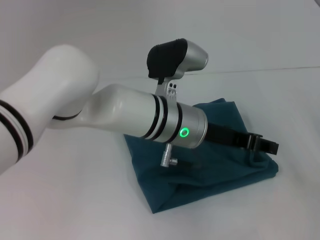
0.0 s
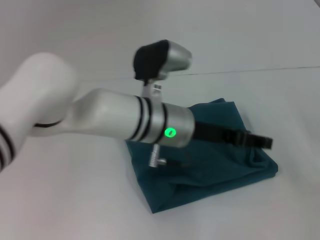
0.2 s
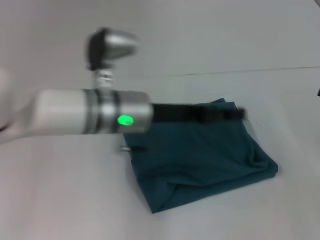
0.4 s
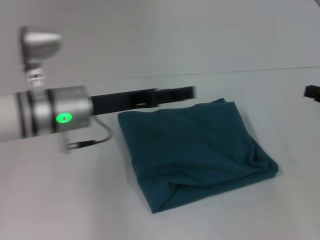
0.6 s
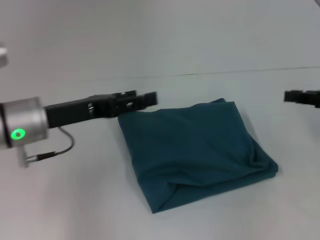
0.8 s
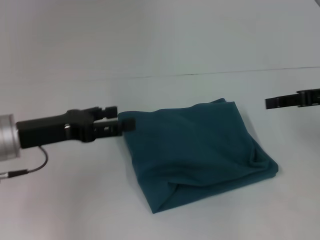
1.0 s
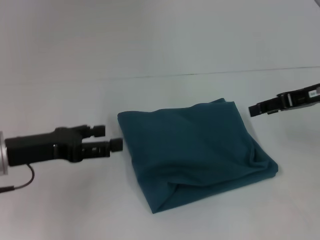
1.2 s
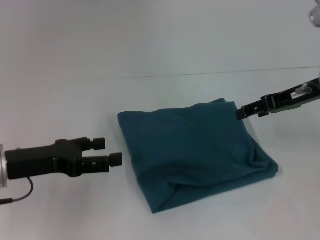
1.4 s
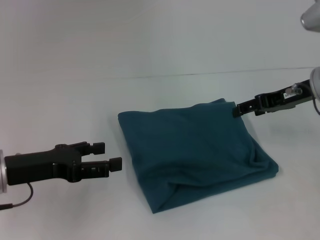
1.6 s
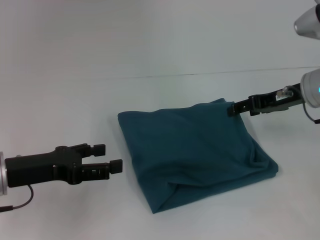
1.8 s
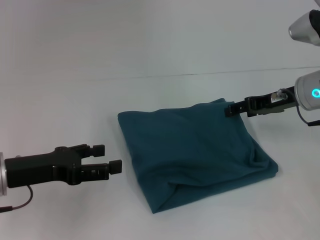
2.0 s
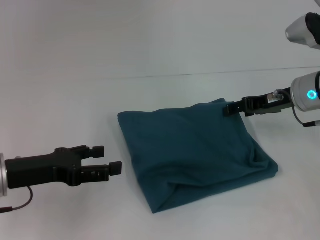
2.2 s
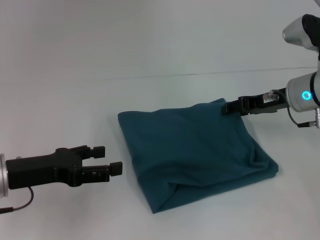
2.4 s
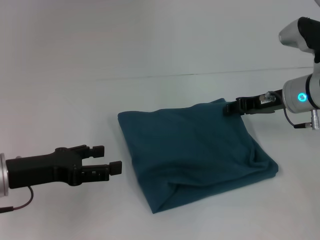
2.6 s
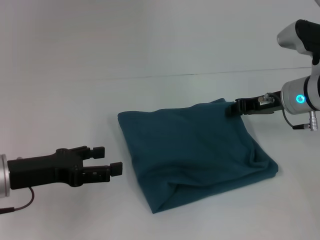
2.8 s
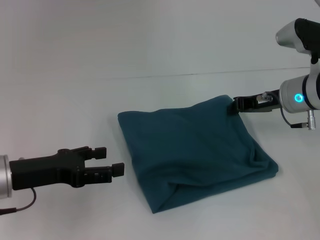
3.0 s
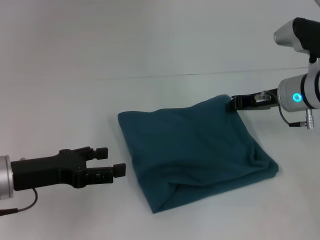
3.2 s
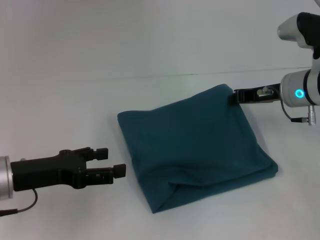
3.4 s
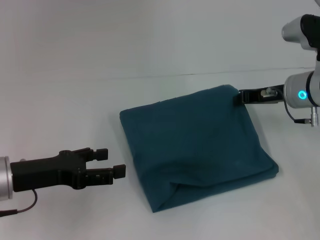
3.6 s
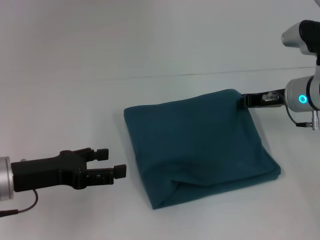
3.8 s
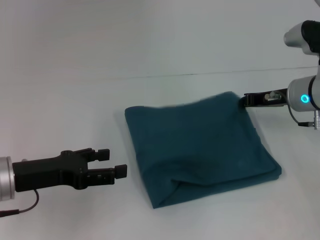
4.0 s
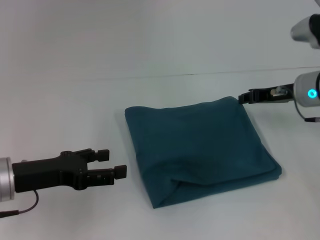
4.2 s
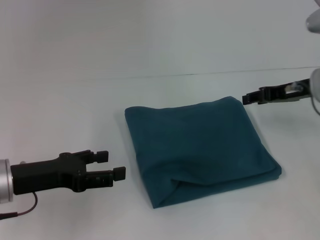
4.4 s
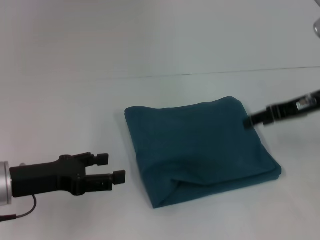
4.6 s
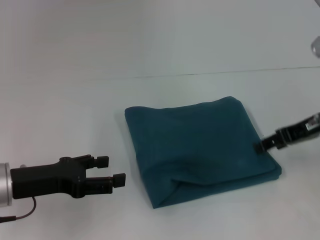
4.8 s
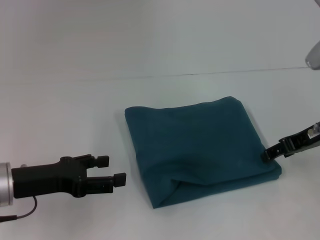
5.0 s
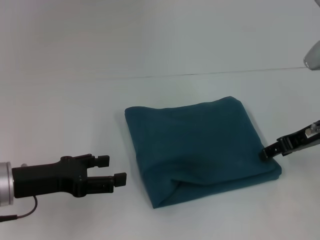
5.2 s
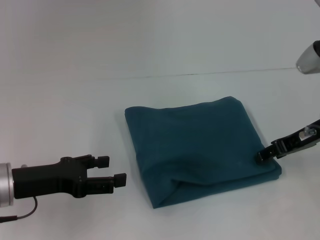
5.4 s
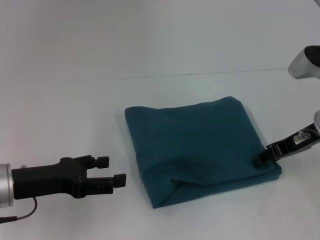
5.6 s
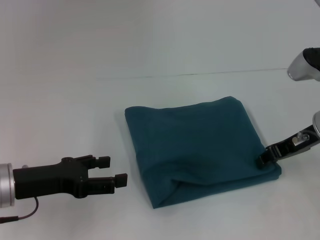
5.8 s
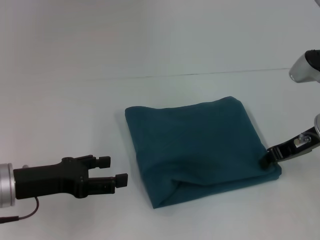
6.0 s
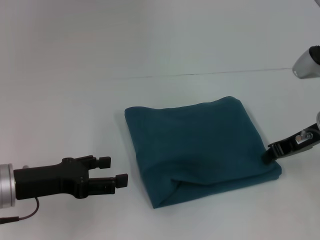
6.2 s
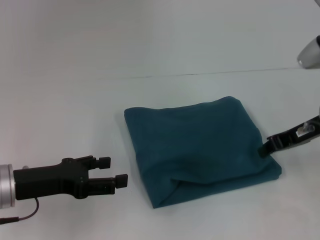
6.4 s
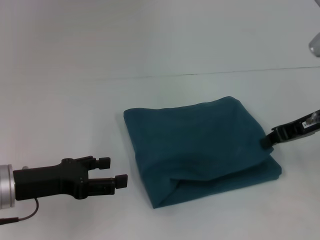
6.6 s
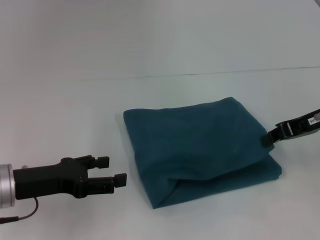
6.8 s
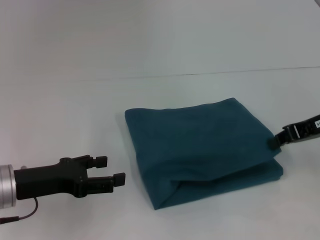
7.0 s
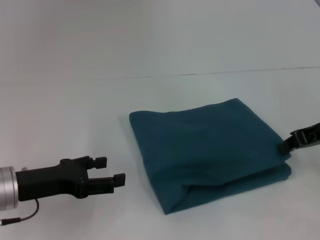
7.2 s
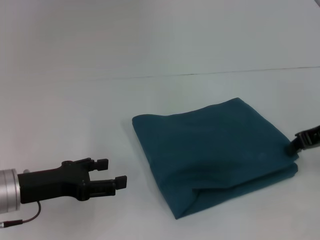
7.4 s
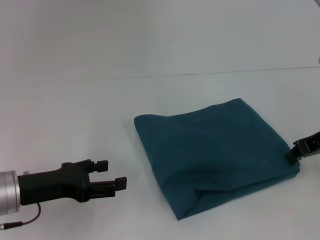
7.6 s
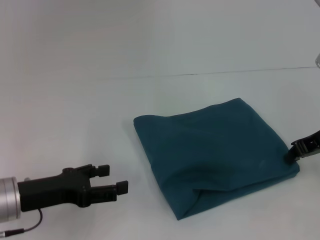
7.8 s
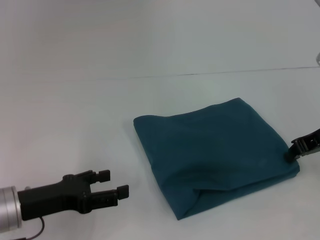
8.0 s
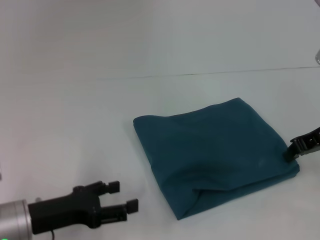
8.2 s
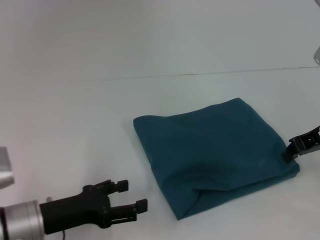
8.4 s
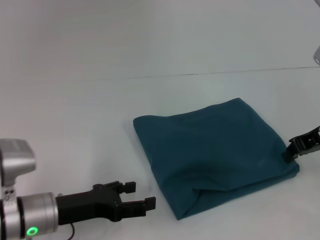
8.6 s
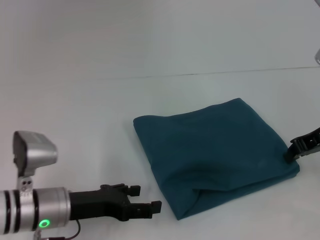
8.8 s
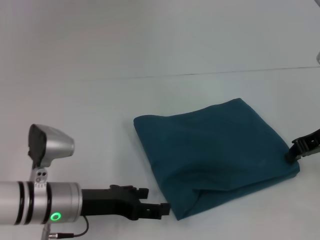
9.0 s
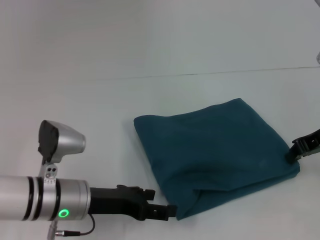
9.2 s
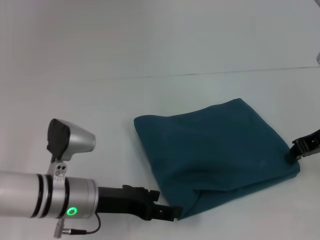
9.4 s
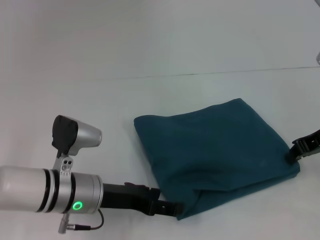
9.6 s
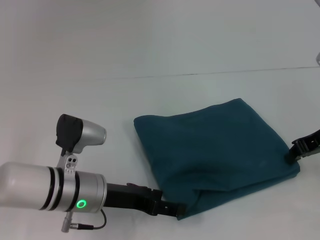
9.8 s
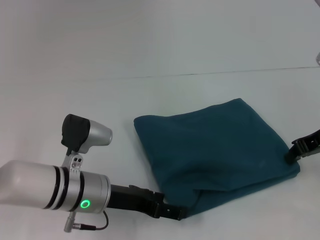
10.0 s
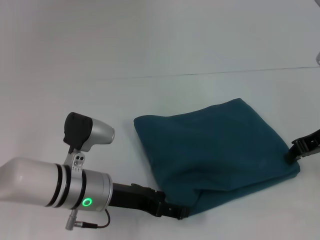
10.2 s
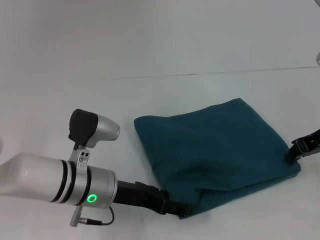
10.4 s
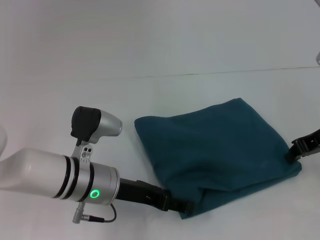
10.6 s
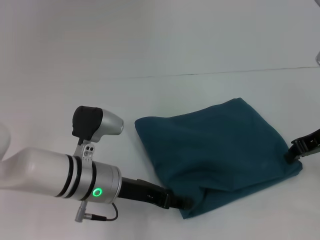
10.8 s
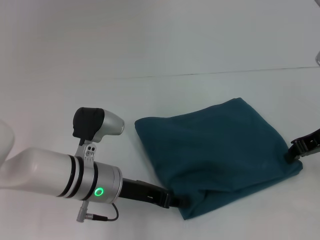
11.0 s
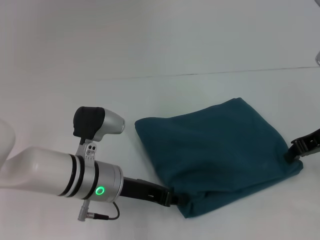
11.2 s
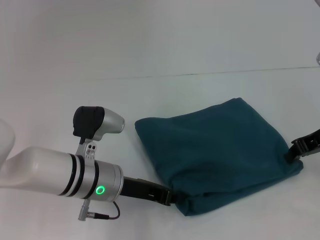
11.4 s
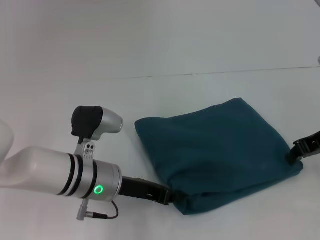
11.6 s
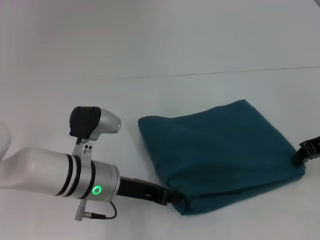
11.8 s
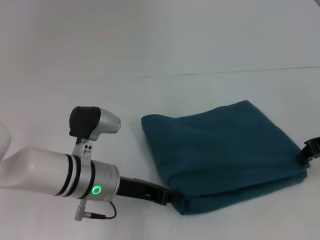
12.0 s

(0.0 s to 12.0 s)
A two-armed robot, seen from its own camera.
0.0 s - 1.6 s: The right gripper goes approximately 20 cm to the left, forward and upward, and opens up. Meanwhile the left gripper is displaced to the left by roughly 25 cm, and opens.
1.6 s - 3.0 s: The right gripper ends up roughly 5 cm from where it was, and closes up.
3.0 s - 4.4 s: The grippers stay close to where they were, moving slightly.
4.4 s - 6.0 s: The right gripper opens, then closes again.
6.0 s - 7.6 s: The right gripper closes its fingers.
7.6 s - 9.0 s: The left gripper is displaced to the right by some 5 cm.
9.0 s - 10.4 s: The left gripper travels to the right by about 5 cm.
10.4 s - 12.0 s: The left gripper closes.

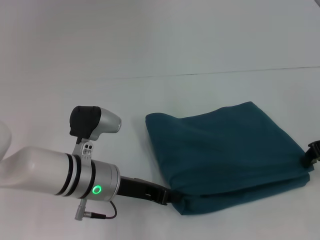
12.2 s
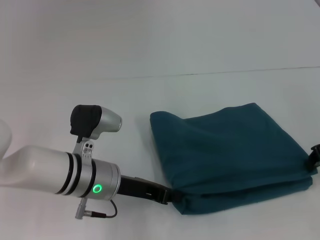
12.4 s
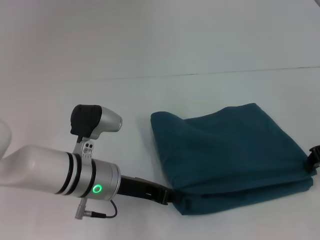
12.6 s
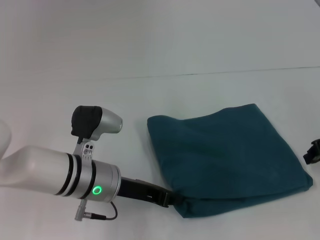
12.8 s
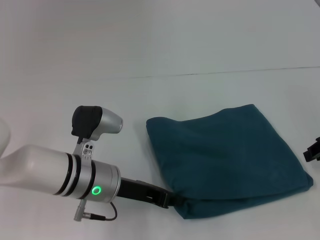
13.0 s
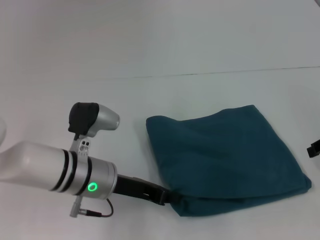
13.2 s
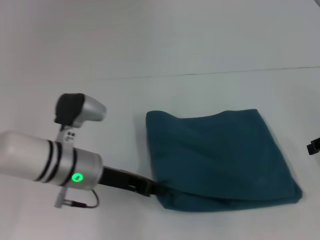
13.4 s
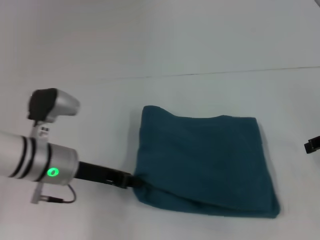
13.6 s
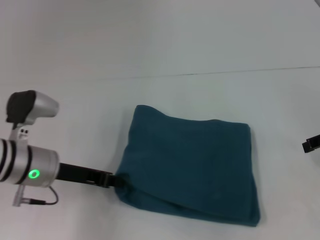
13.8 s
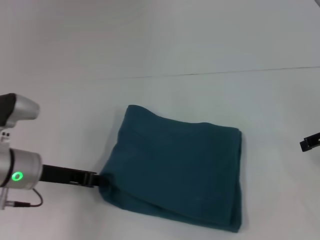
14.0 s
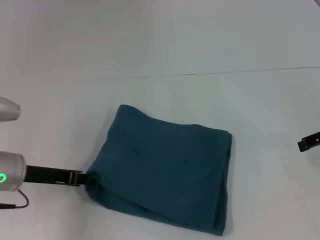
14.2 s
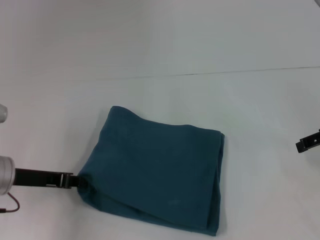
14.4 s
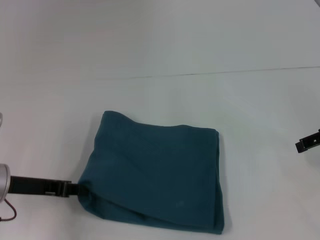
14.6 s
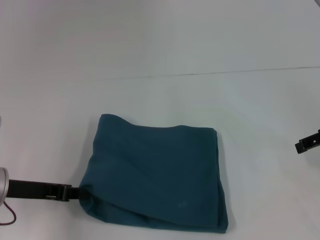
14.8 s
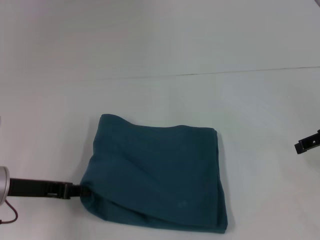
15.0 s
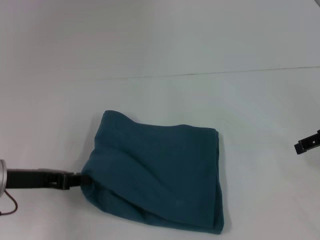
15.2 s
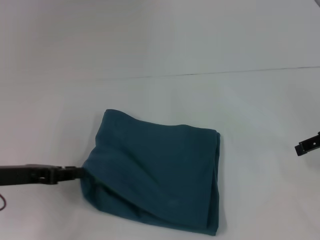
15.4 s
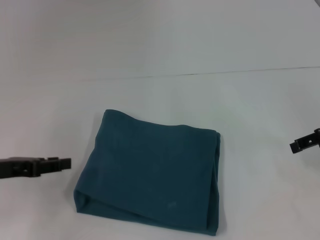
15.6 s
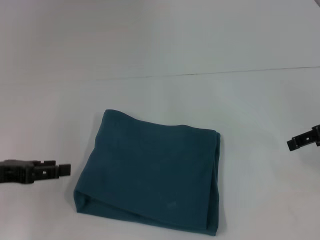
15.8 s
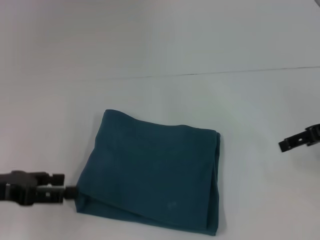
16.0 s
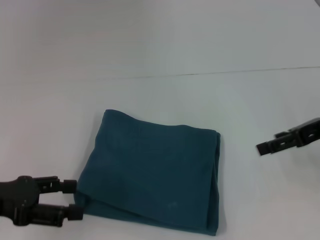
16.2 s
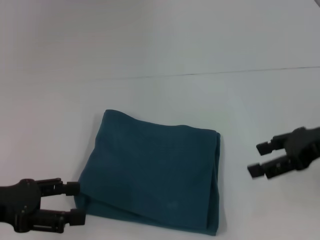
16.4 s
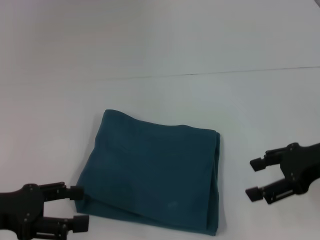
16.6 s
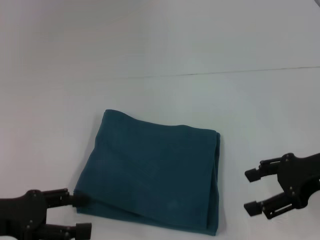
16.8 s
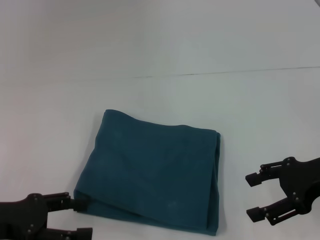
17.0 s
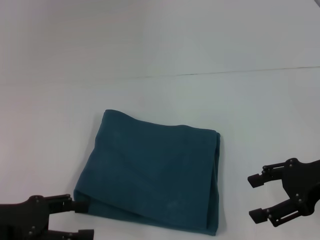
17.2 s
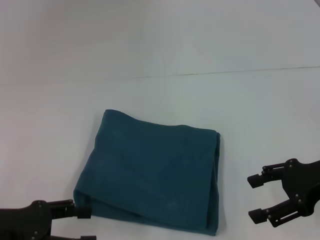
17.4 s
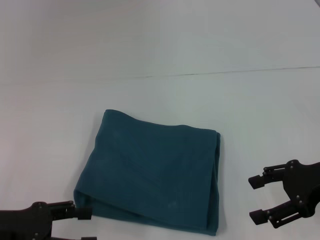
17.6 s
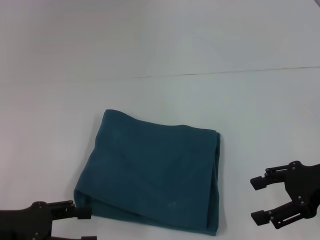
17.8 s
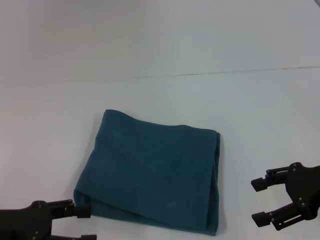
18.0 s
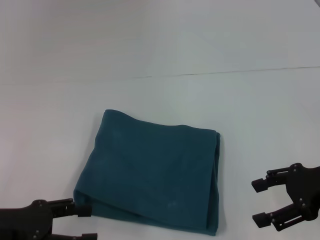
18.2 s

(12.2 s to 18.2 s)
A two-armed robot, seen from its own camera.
12.2 s - 13.8 s: The right gripper opens its fingers; the left gripper shifts some 10 cm to the left.
13.8 s - 15.2 s: The left gripper shifts roughly 5 cm to the left.
15.2 s - 16.6 s: The left gripper goes some 5 cm backward, and opens up. Meanwhile the right gripper shifts by approximately 5 cm.
16.6 s - 18.2 s: The grippers stay close to where they were, moving slightly.

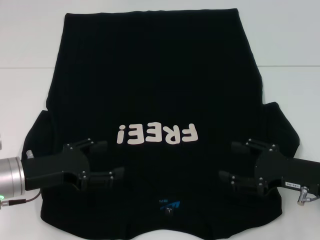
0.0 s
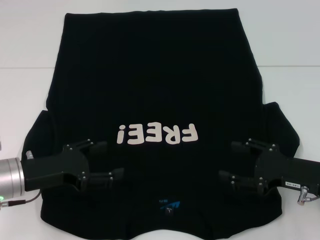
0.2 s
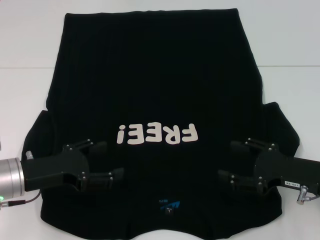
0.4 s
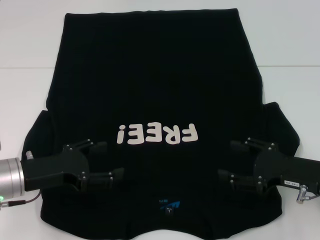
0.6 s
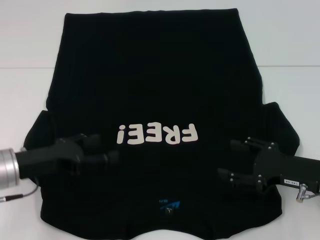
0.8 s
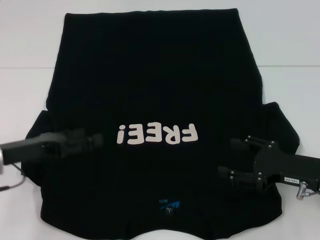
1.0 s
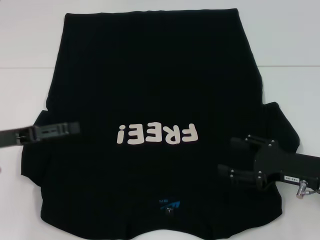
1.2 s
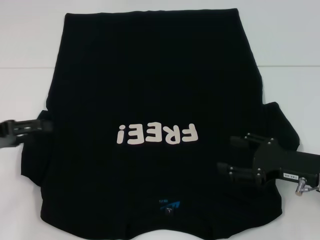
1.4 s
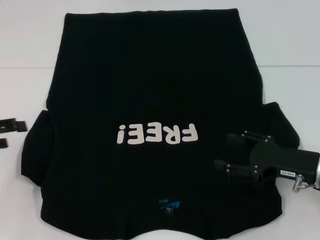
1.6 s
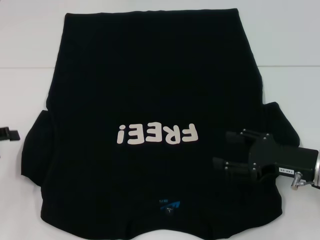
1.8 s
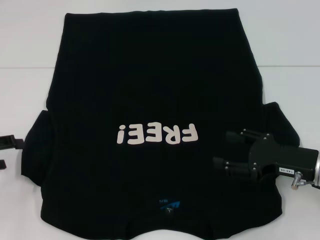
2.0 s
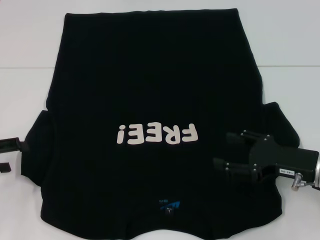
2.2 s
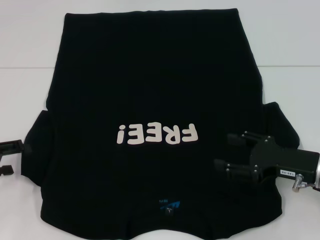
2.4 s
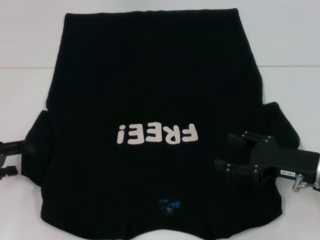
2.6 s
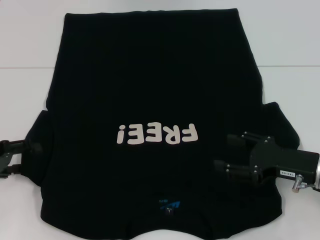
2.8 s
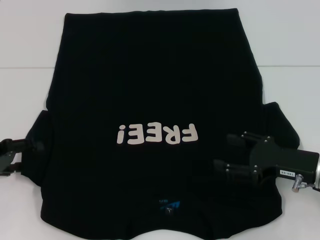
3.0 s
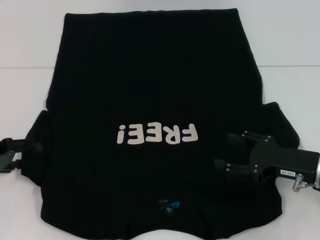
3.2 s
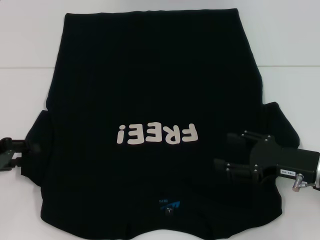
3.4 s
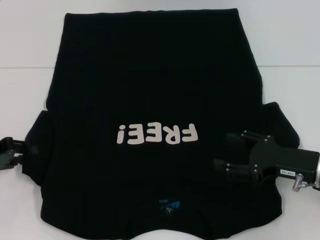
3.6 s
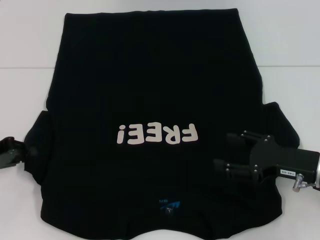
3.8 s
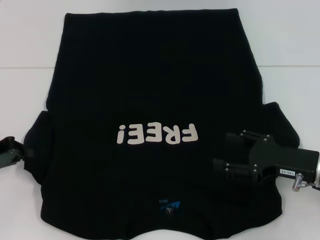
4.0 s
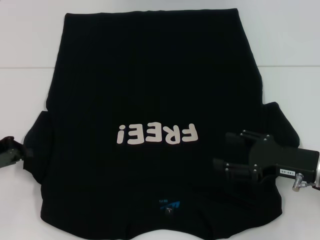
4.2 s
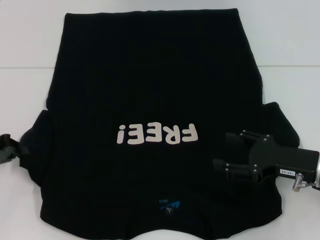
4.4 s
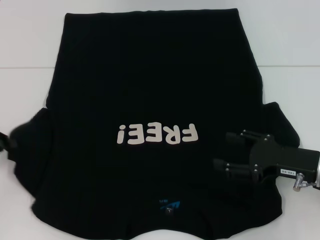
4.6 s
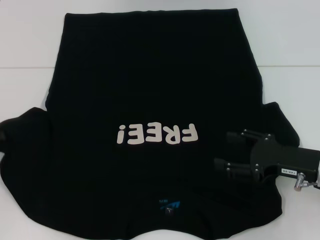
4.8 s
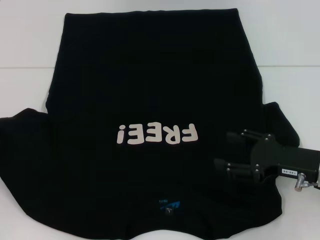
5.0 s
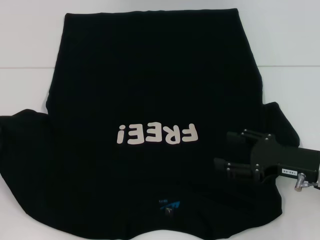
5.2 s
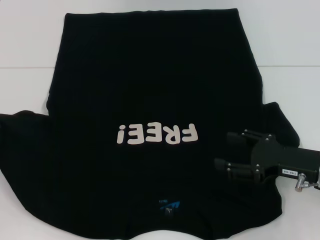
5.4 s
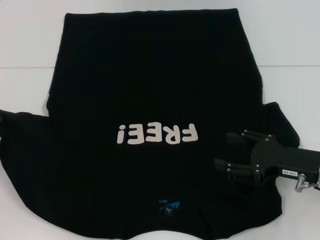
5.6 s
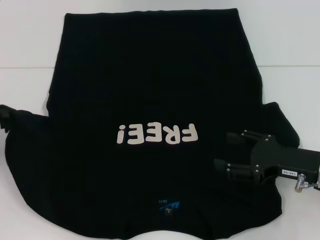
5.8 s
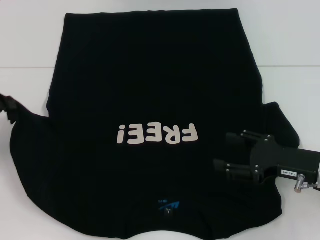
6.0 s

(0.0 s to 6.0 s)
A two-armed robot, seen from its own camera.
0.0 s - 1.6 s: The left gripper goes about 15 cm to the left and upward.
1.6 s - 3.0 s: The grippers move only a little.
3.0 s - 4.4 s: The left gripper closes.
4.4 s - 6.0 s: The left gripper is displaced upward by roughly 5 cm.
